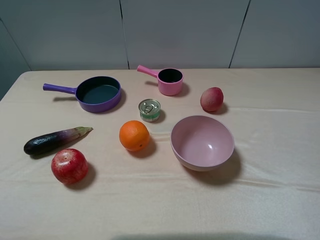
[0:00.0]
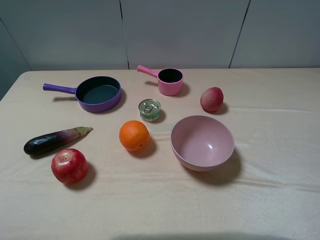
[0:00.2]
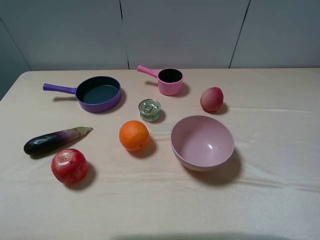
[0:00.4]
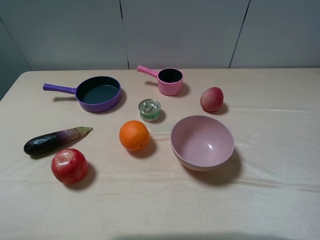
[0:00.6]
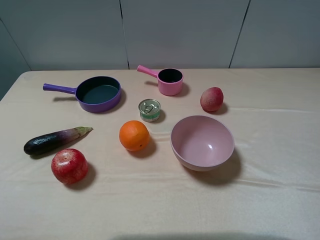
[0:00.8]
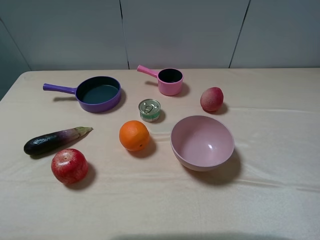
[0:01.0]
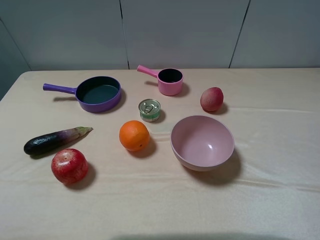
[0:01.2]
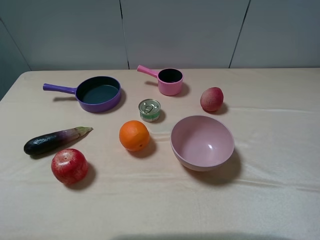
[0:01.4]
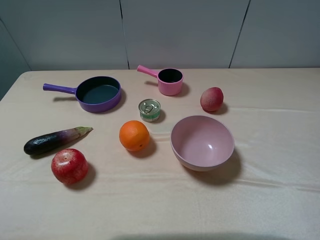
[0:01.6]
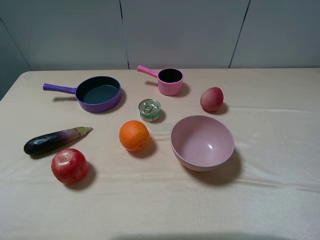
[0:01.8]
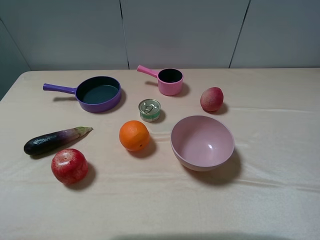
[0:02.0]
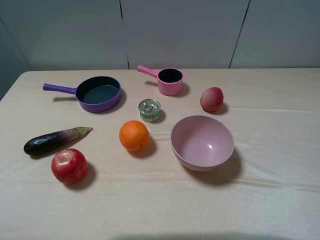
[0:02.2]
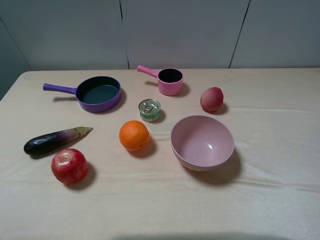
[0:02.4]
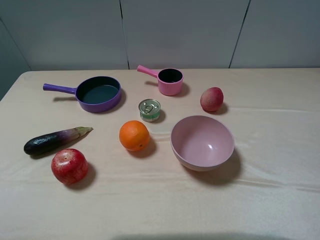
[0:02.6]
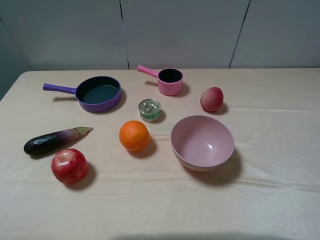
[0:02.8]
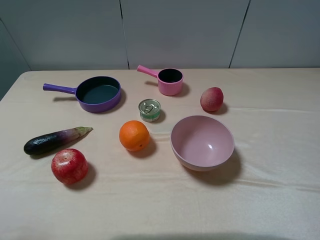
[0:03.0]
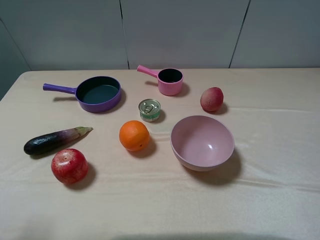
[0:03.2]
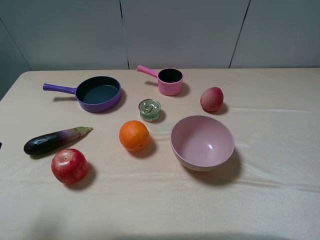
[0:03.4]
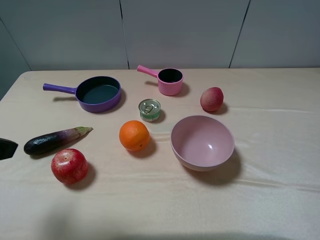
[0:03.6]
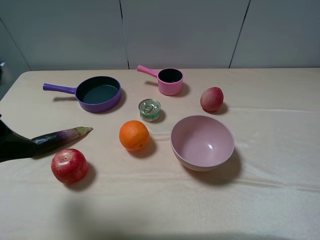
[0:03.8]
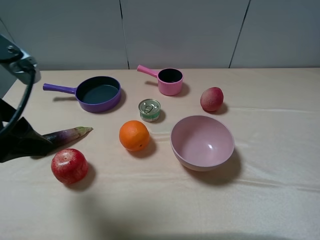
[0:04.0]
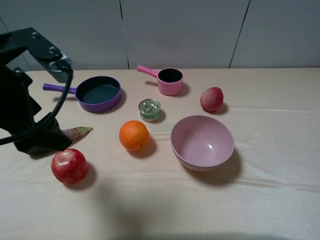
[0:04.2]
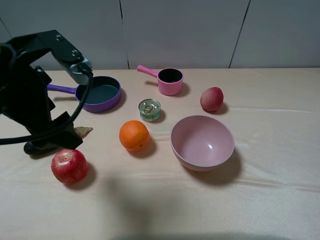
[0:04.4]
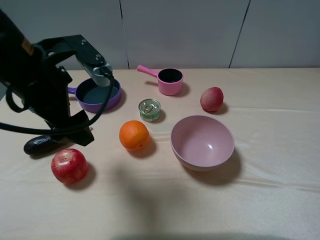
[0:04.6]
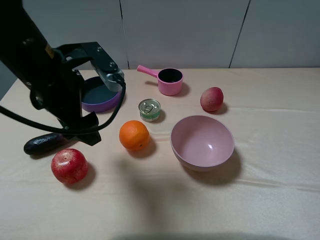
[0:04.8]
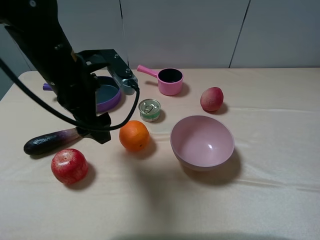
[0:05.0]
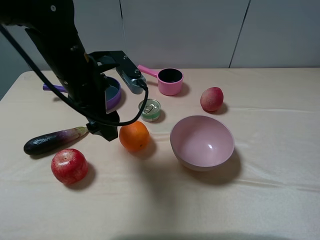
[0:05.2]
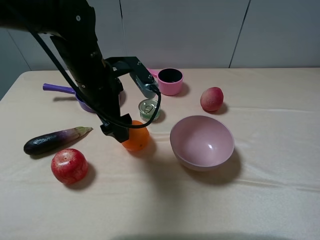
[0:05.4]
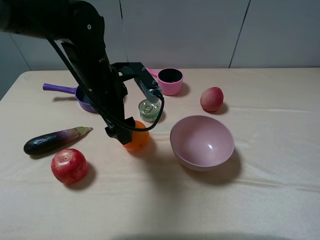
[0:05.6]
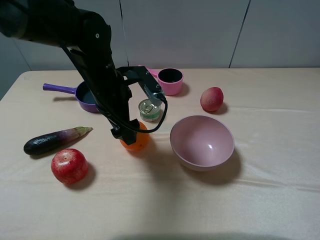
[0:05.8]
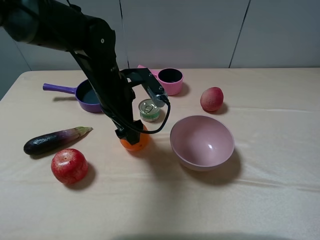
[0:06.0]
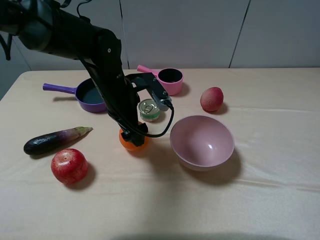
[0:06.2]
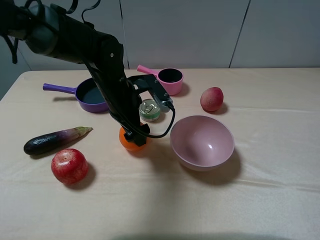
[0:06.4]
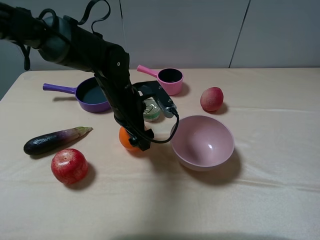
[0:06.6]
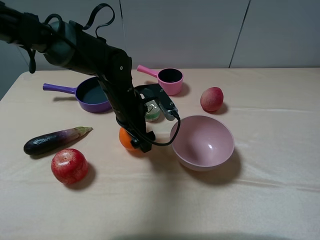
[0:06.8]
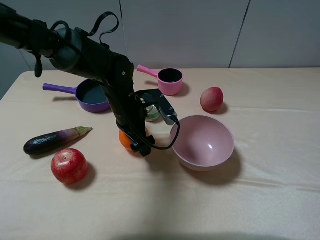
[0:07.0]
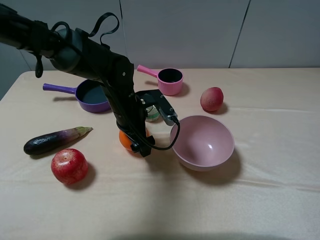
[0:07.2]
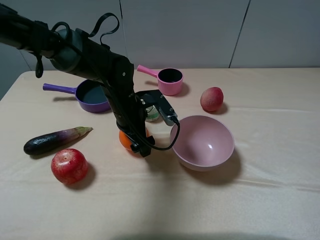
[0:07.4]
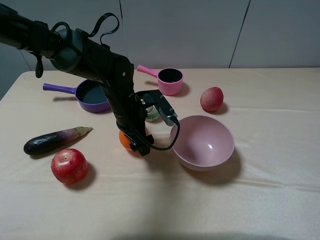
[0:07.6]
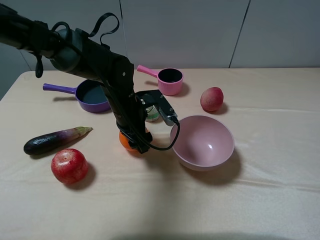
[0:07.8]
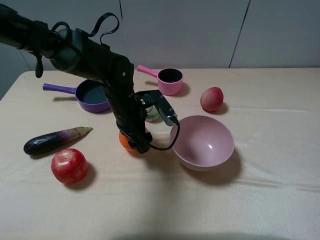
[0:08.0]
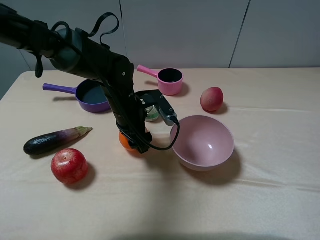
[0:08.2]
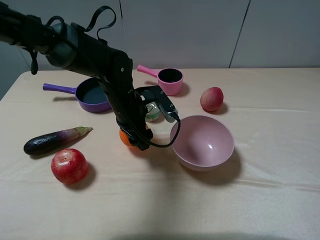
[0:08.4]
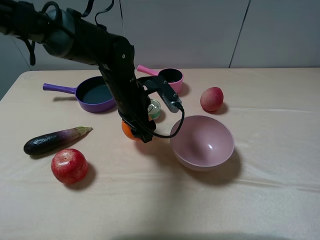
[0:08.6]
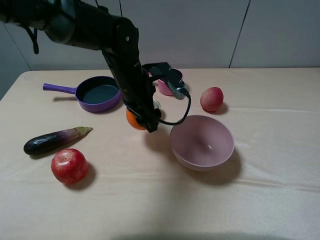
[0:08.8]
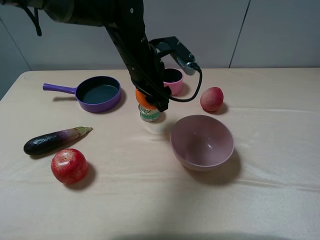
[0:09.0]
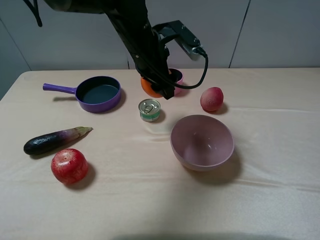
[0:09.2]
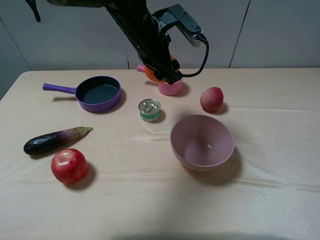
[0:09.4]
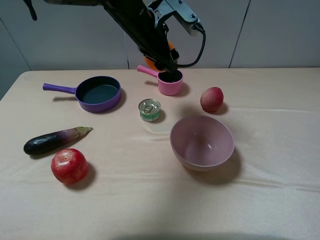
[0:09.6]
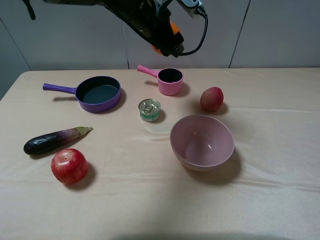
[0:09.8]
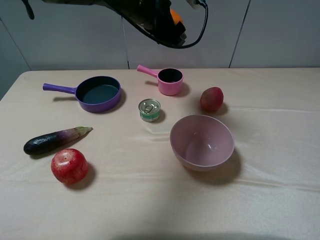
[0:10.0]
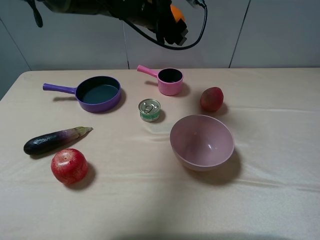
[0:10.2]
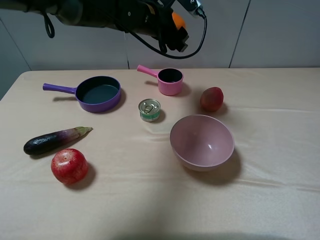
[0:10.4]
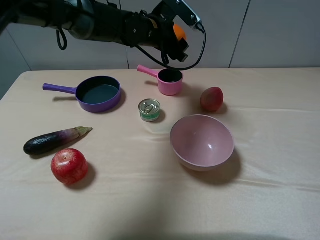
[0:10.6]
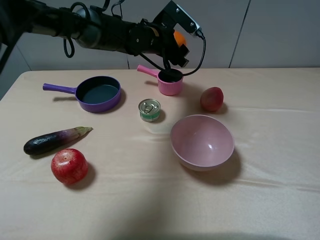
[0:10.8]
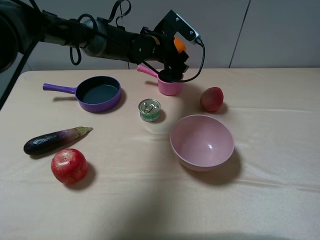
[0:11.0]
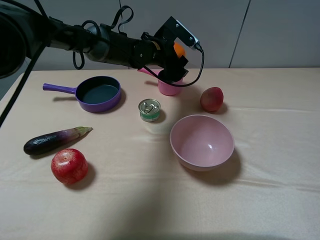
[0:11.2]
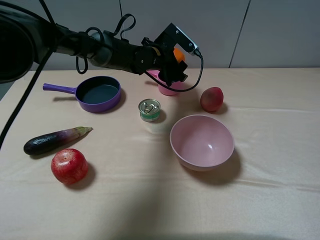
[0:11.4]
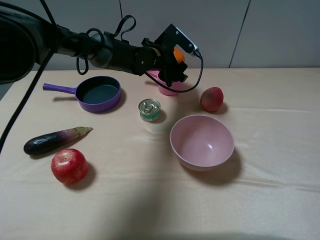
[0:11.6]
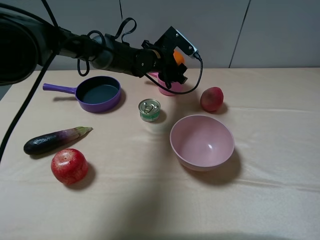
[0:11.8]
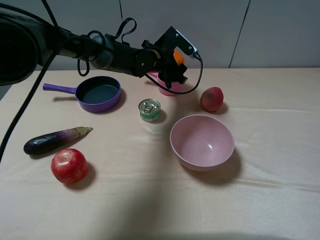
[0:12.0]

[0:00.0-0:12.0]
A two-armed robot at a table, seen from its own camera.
Task of the whole recording: pick up an item with a gripper and place it in a random container on the table.
Step, 0:00.0 to 0:08.0: Grasp the orange with the left gripper.
0:00.0 to 0:01.6: Both grippers stay about where they are.
0:03.0 to 0:04.4: The left gripper travels forward and to the right by roughly 20 cm.
0:04.4 to 0:06.0: The left gripper goes approximately 20 cm downward, forward and to the right.
0:06.0 to 0:07.6: The left gripper is displaced downward by roughly 5 cm, and closes up.
0:07.6 to 0:09.0: The left gripper moves upward, approximately 10 cm, and closes up.
0:09.0 to 0:10.4: The left gripper travels forward by approximately 10 cm.
0:10.4 to 0:12.0: The left gripper goes about 10 cm downward.

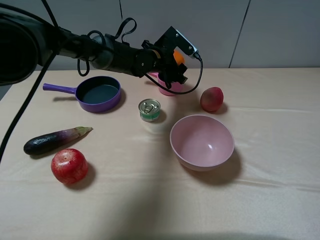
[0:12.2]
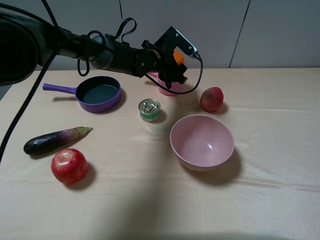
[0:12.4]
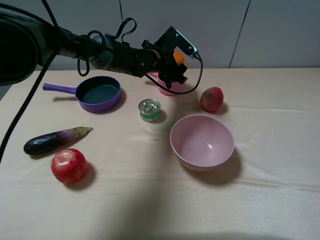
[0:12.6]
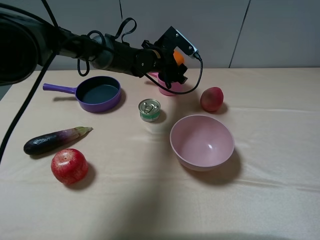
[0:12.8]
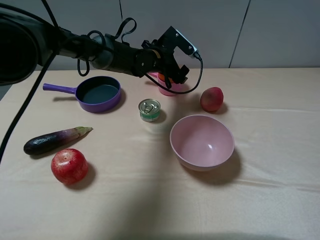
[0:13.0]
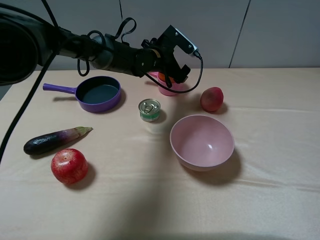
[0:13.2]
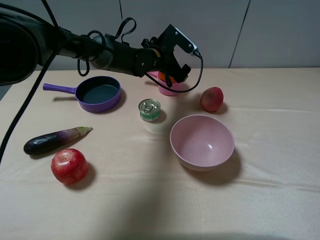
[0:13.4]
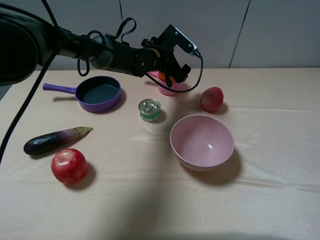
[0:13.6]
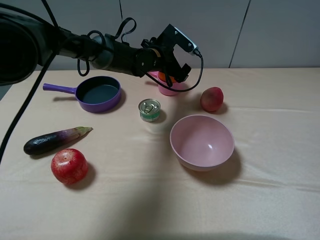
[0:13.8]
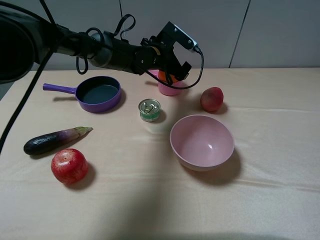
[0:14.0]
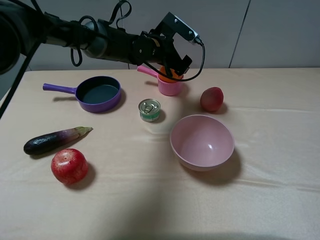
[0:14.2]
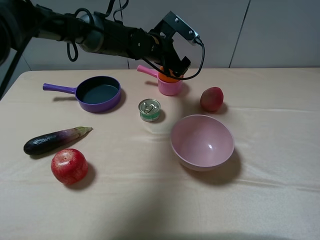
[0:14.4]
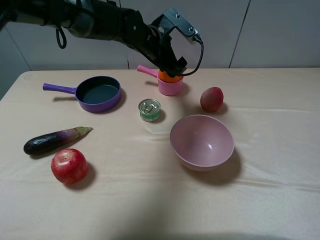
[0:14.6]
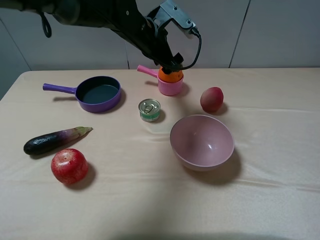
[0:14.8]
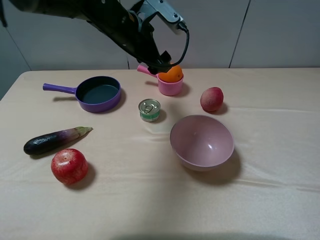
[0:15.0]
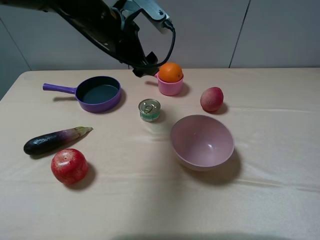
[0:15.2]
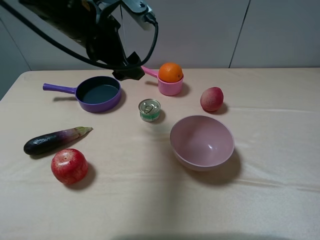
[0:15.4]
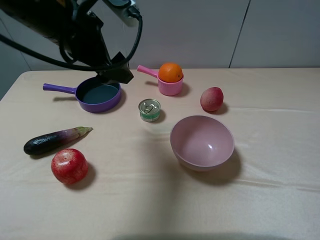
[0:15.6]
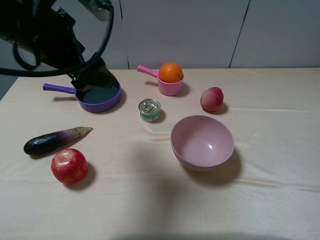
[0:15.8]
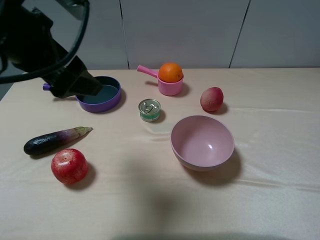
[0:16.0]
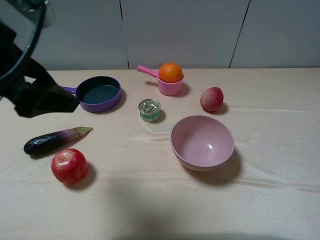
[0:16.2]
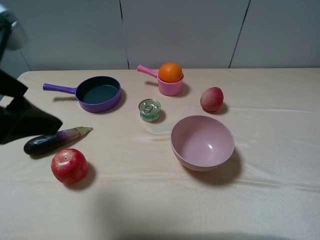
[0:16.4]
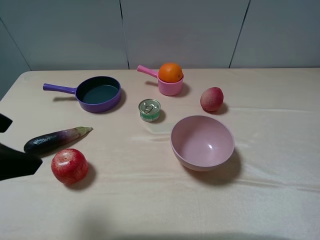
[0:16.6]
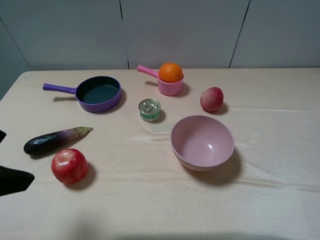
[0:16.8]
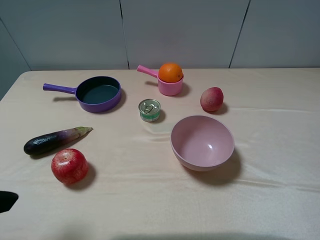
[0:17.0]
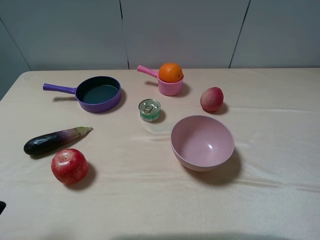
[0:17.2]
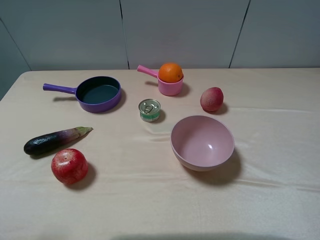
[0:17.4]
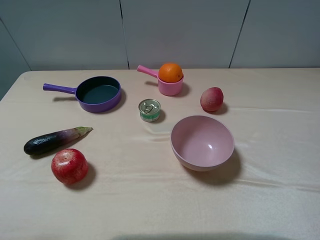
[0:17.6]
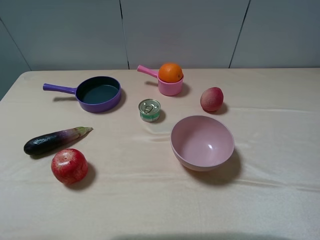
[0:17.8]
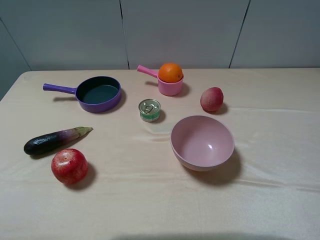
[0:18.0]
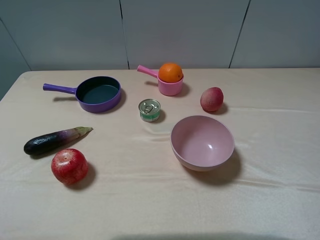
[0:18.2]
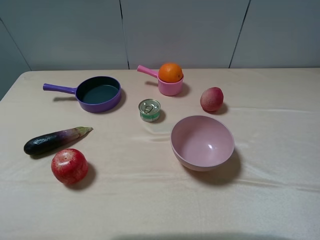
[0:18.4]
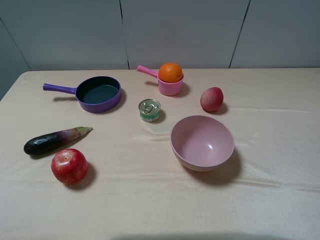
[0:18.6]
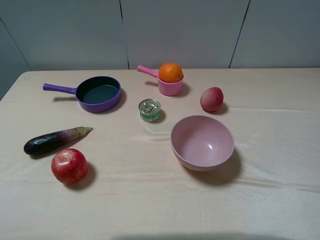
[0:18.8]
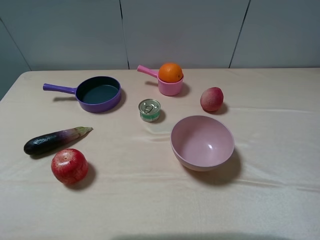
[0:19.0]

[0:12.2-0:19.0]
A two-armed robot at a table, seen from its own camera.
Task of the whole recording: pick up an item with a gripper and place it in a random container on the table.
0:12.2 to 0:13.6: The left gripper opens.
0:13.6 to 0:15.0: The left gripper moves upward, backward and to the left, about 15 cm.
0:15.0 to 0:16.2: The left gripper travels backward and to the left by about 25 cm.
0:16.2 to 0:17.6: The left gripper goes approximately 15 cm backward and to the left.

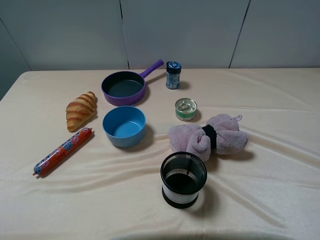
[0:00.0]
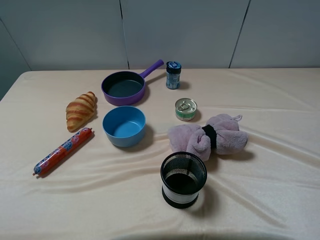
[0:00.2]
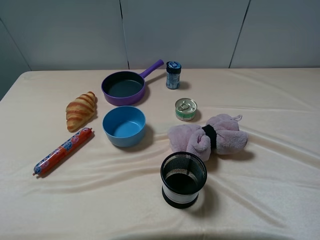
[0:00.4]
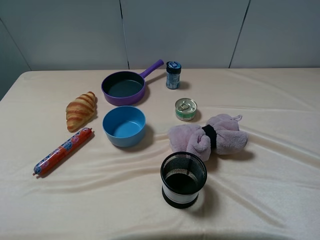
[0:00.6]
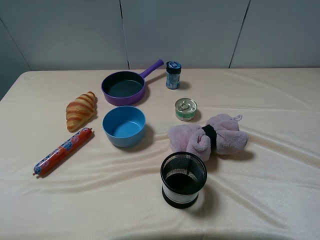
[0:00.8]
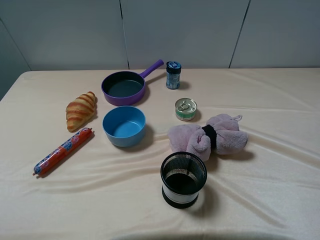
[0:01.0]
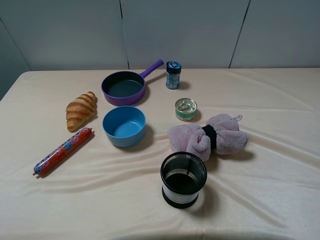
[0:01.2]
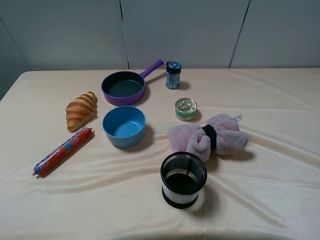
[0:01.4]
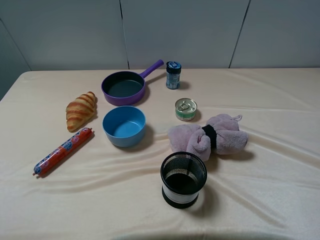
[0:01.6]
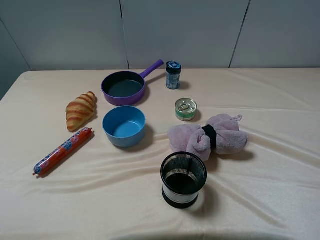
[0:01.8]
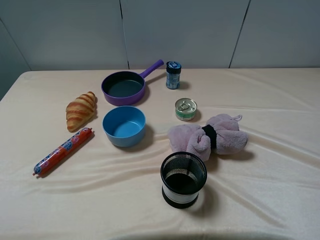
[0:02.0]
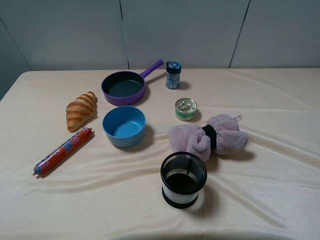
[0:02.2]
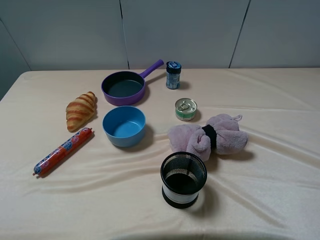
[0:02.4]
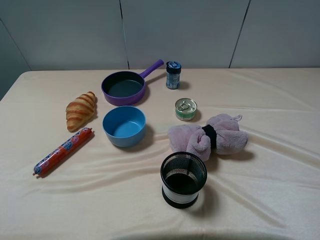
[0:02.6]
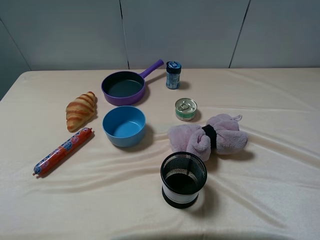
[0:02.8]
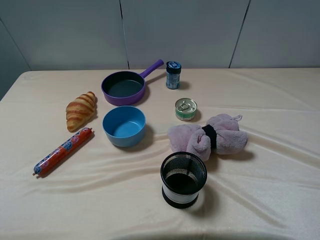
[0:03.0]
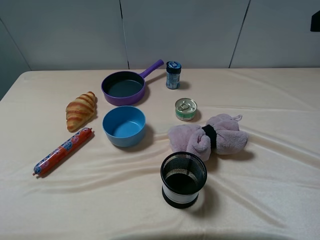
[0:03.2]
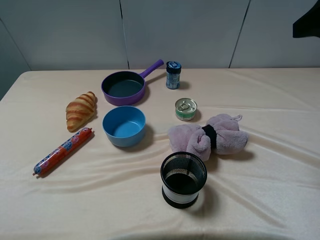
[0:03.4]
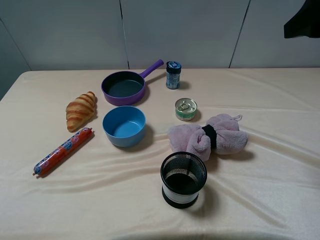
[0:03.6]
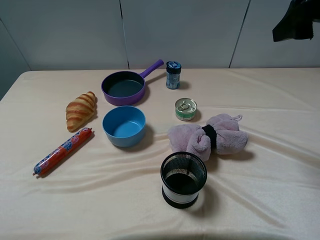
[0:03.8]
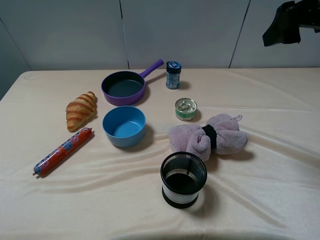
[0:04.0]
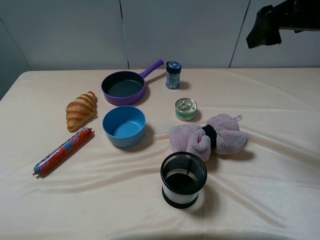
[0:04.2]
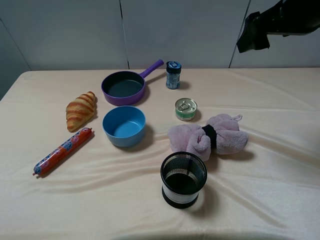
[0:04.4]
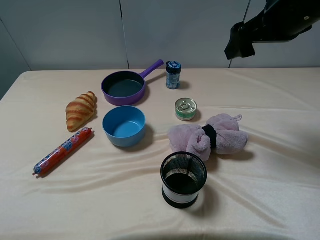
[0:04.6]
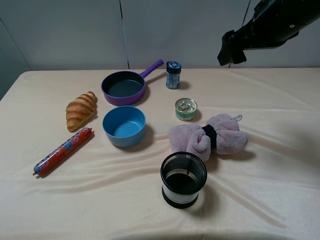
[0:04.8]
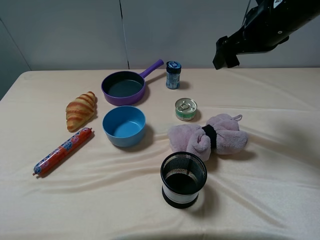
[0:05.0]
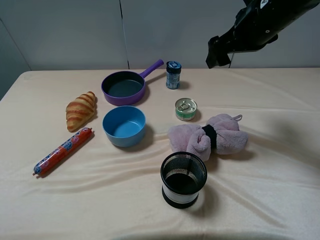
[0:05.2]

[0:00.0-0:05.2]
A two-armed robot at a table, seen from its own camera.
Task of the whole recording: pick up an item with a gripper and place it in a random container on the table.
0:00.0 to 0:01.8: Neither gripper changes place.
0:01.8 to 0:03.4: The right gripper moves forward, about 20 cm.
0:03.4 to 0:05.2: The right gripper shifts approximately 20 cm forward, to the left and downward.
